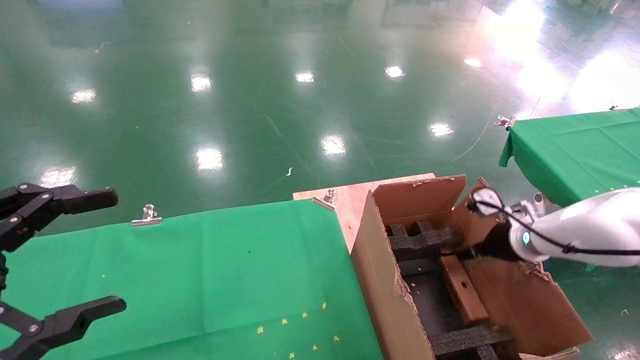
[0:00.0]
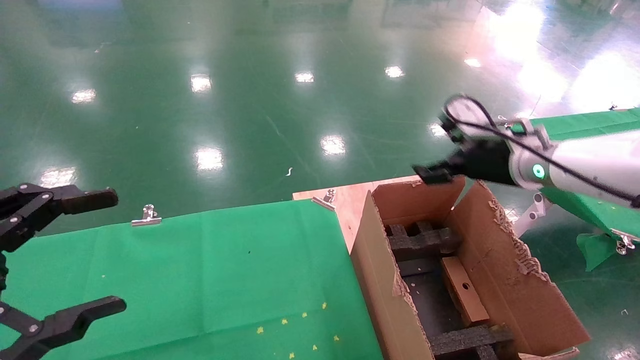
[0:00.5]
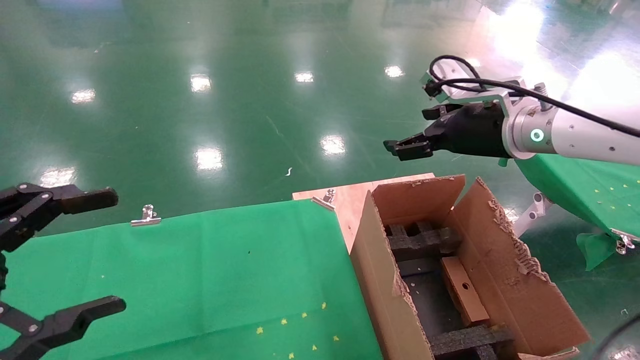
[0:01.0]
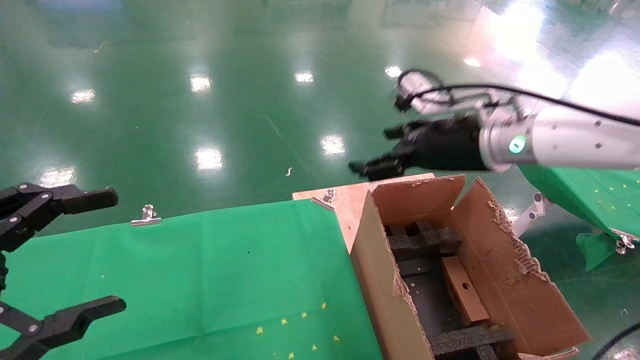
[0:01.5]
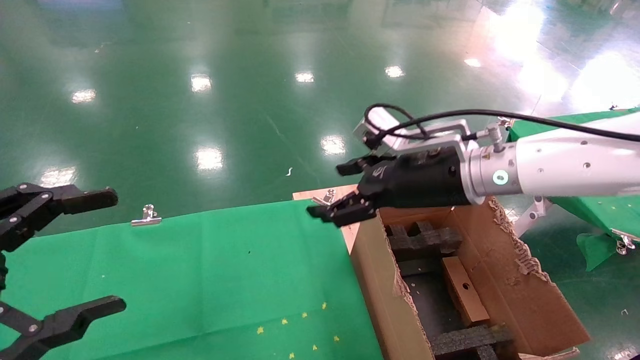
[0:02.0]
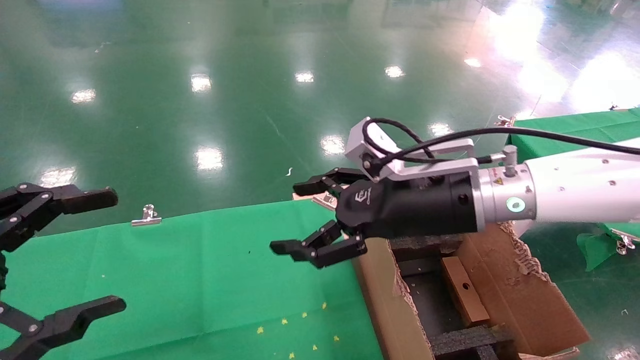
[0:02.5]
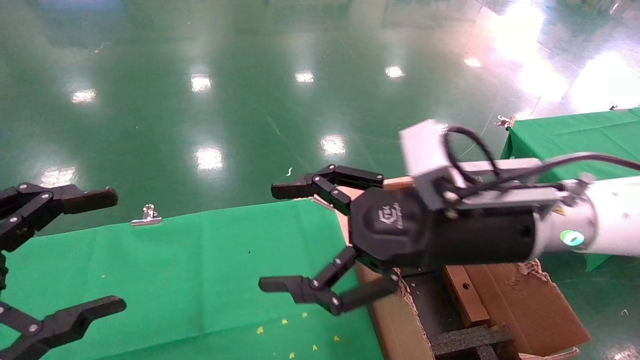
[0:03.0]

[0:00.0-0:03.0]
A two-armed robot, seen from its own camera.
Task of the whole recording: using a robotic arm to pick up a cardboard box and palace it the carton.
0:00.0 to 0:01.5: The right gripper shifts some 20 cm upward and to the left.
0:01.5 to 0:03.0: The right gripper heads backward and to the left, covering about 10 cm.
